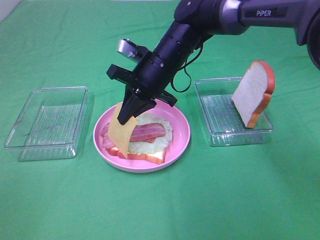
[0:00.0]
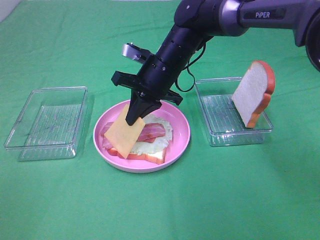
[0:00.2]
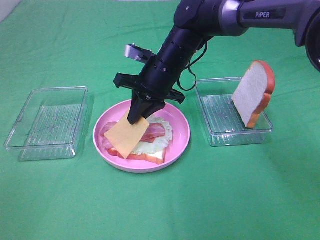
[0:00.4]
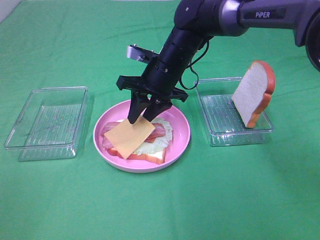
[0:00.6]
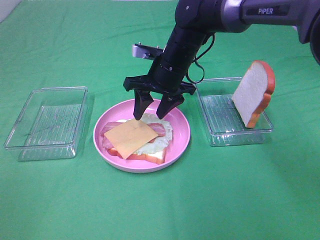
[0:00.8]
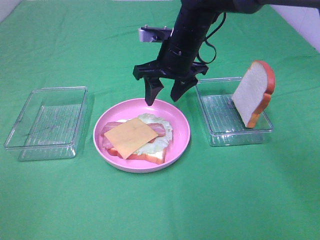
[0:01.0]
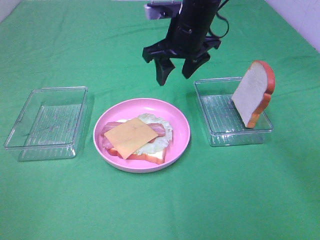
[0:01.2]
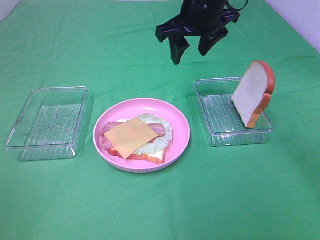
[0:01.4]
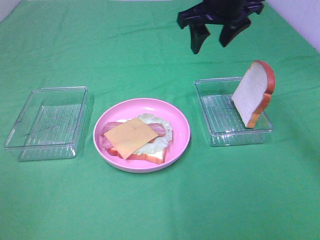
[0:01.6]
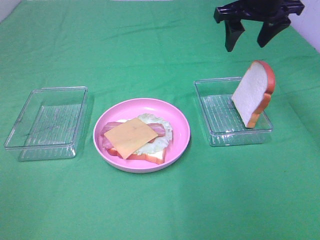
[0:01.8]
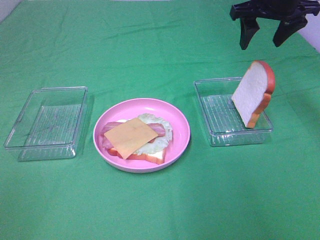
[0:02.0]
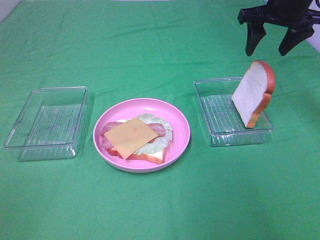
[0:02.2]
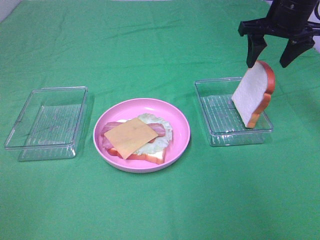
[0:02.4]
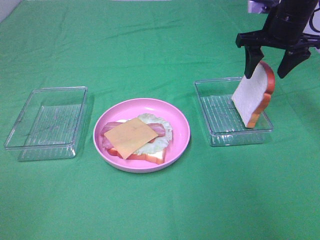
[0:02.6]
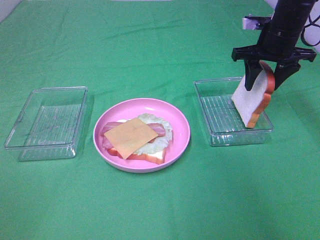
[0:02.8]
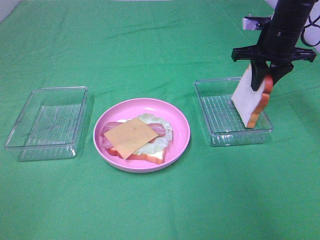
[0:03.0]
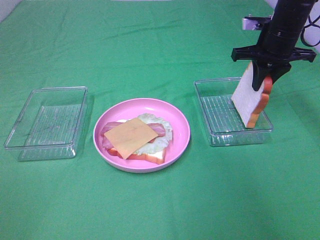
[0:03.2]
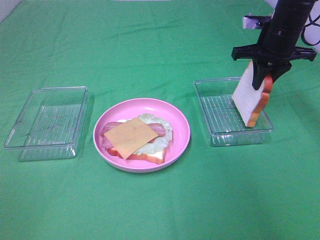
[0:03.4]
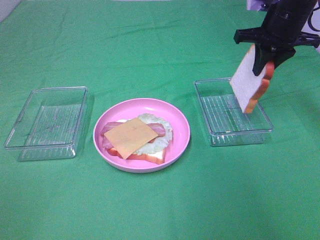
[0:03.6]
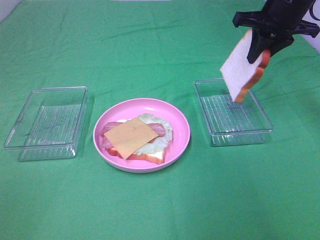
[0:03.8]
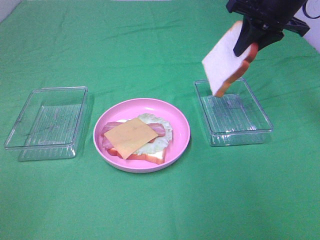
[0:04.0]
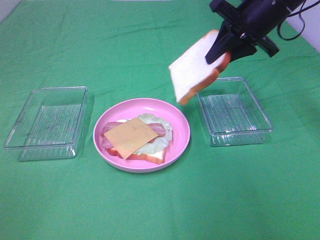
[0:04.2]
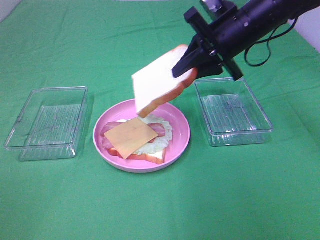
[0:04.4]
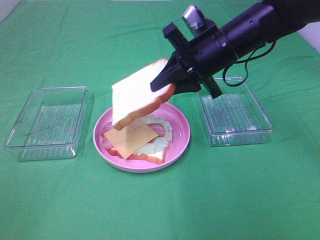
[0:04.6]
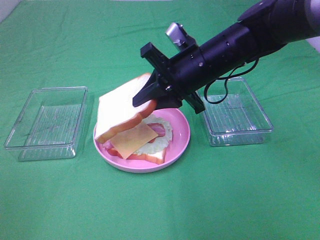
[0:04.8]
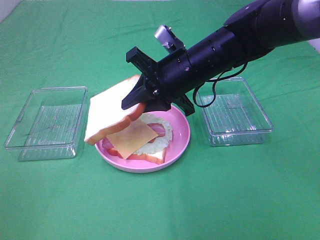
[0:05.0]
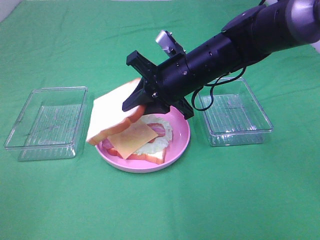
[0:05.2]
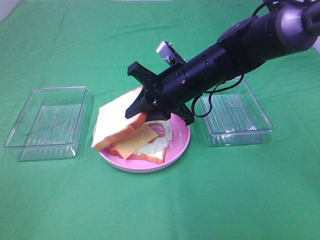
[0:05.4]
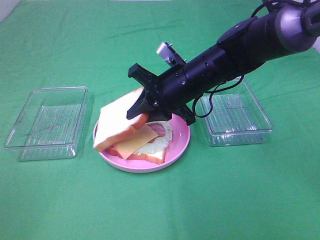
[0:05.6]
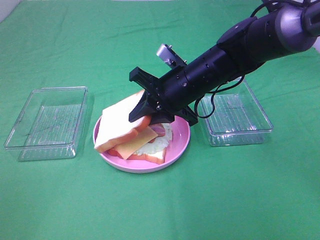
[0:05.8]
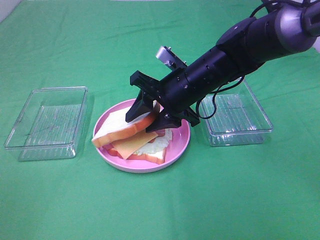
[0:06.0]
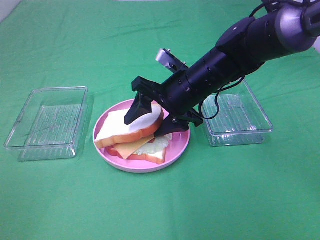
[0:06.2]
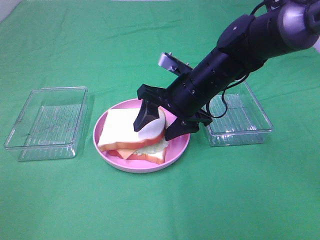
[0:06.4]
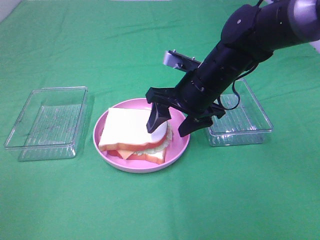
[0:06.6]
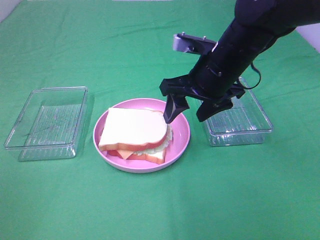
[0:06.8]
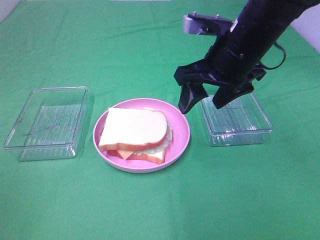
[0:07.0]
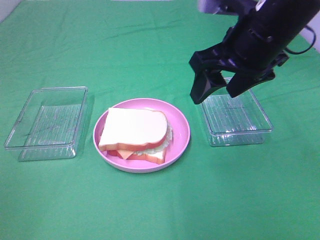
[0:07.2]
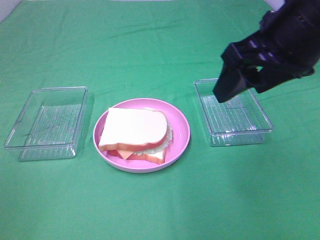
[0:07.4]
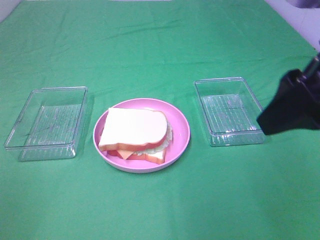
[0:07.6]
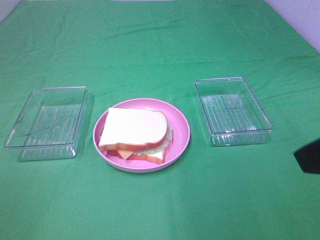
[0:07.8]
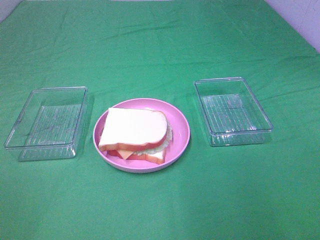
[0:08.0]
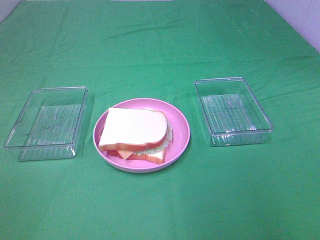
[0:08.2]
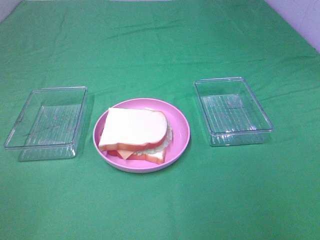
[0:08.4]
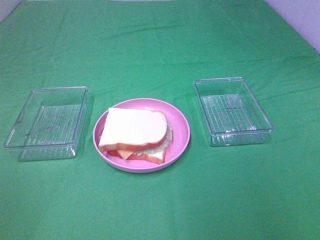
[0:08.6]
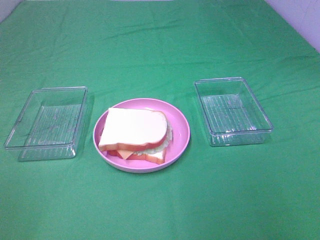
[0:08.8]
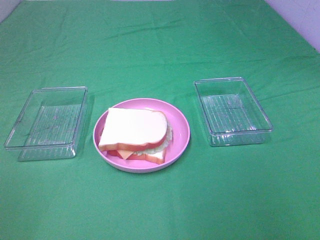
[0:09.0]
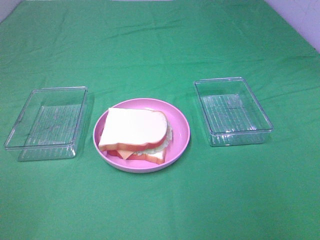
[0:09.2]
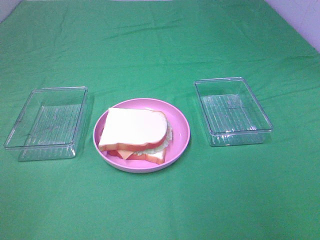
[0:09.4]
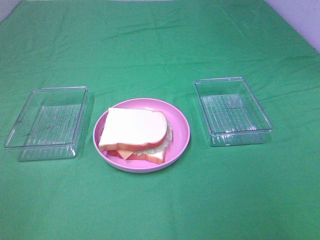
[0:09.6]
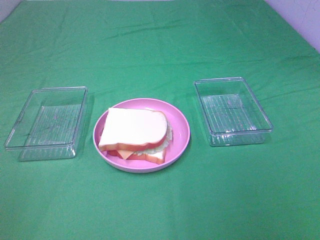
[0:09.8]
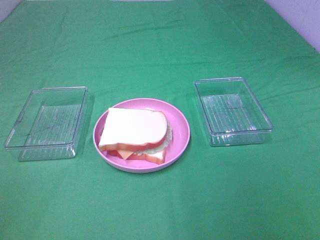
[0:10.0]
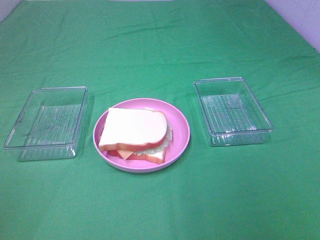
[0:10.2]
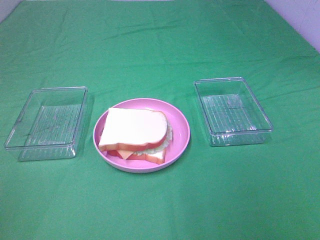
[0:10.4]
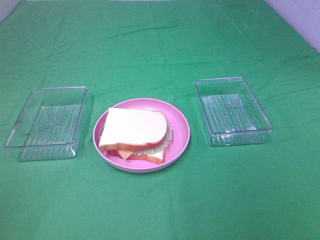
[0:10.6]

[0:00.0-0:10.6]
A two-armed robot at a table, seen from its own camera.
Task of the whole recording: Make sandwiches.
Step, 0:00.8 to 0:03.2: Right hand:grab the bread slice.
Step, 0:03.4 to 0:06.4: Right hand:place the bread slice on the cheese slice.
0:00.0 to 0:01.6: The right gripper heads upward and to the right, covering roughly 15 cm, and opens up.
0:01.6 to 0:03.0: The right gripper heads to the right and downward, covering some 15 cm, and closes up.
0:03.0 to 0:04.6: The right gripper heads to the left and backward, covering about 15 cm.
0:04.6 to 0:06.0: The right gripper travels downward by about 5 cm, and opens its fingers.
0:06.0 to 0:07.6: The right gripper goes about 30 cm backward, upward and to the right.
0:07.6 to 0:09.0: The right gripper shifts approximately 20 cm backward and to the right.

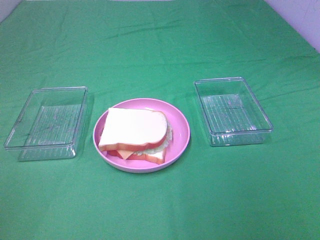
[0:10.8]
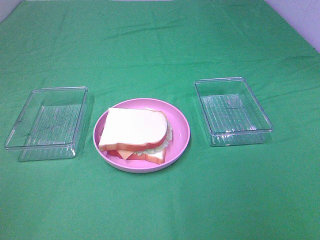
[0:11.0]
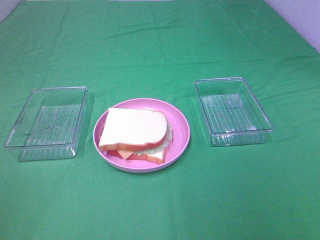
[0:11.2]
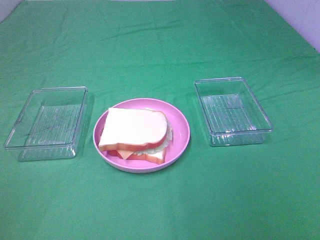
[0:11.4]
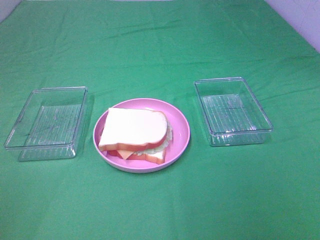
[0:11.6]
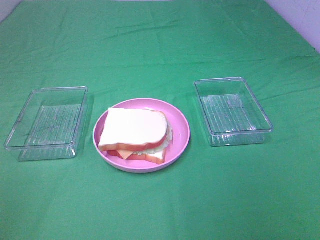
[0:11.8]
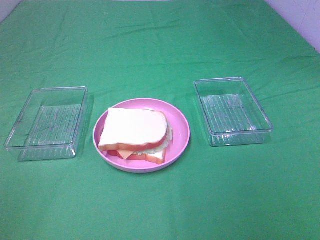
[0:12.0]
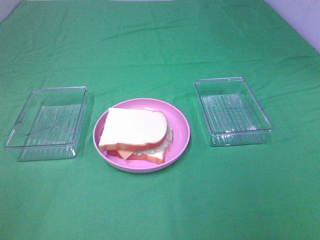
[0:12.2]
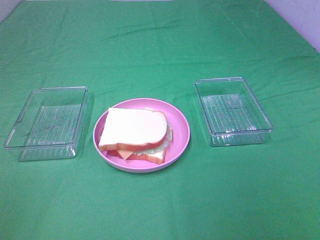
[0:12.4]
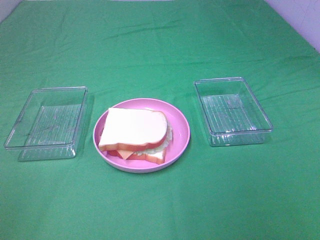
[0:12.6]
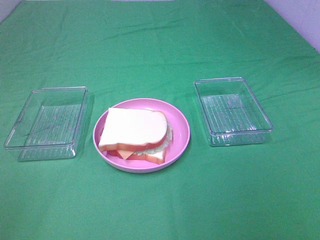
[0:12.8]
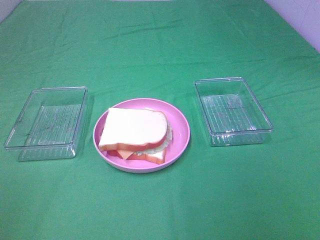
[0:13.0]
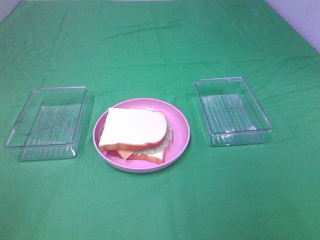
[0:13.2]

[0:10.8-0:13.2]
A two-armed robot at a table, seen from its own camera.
Task of the whole recording: Make sandwiches.
0:12.0 to 0:13.2: Both grippers stay put.
